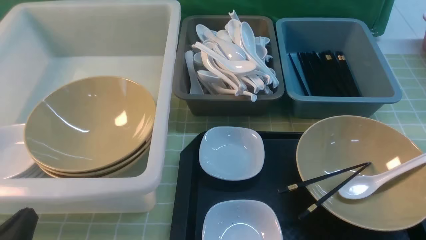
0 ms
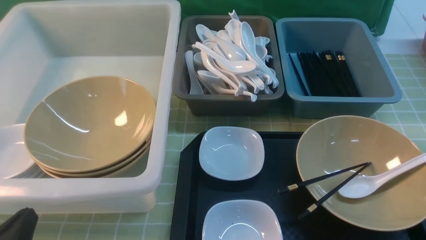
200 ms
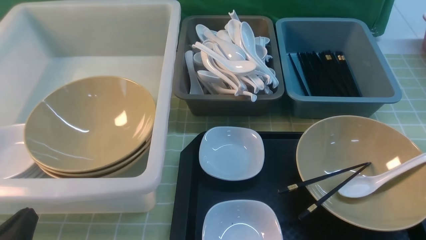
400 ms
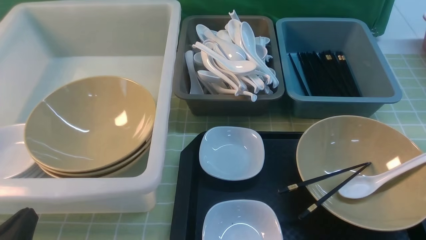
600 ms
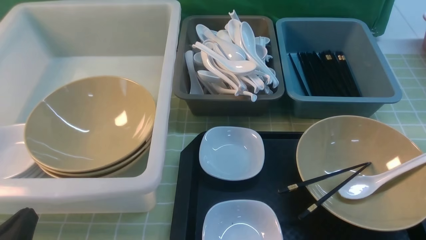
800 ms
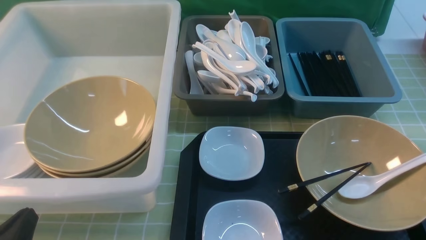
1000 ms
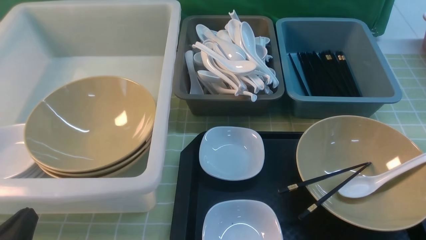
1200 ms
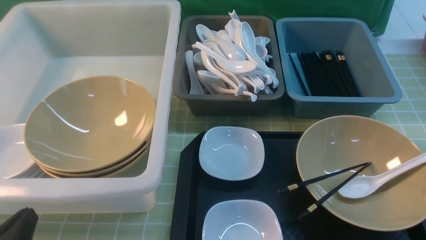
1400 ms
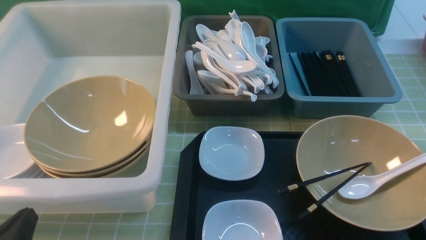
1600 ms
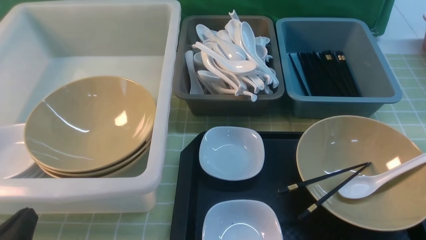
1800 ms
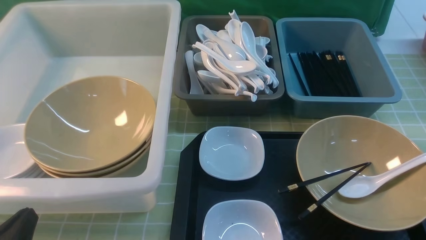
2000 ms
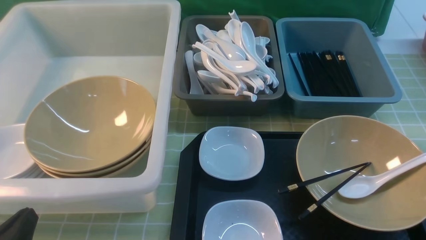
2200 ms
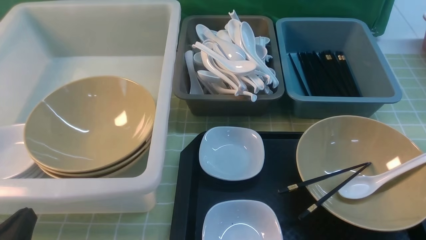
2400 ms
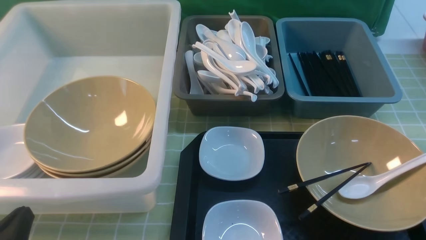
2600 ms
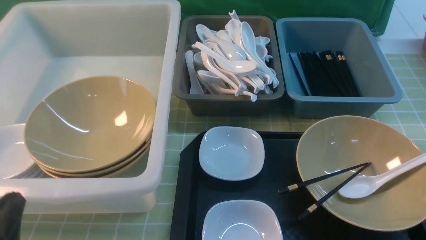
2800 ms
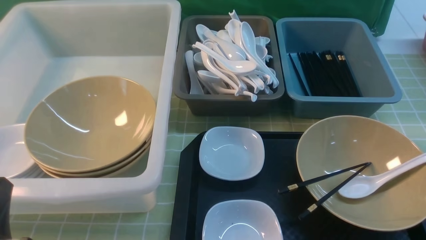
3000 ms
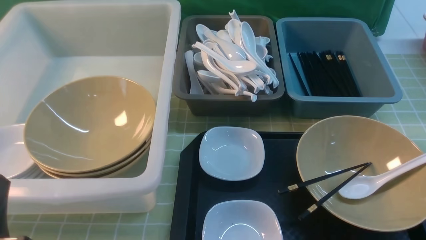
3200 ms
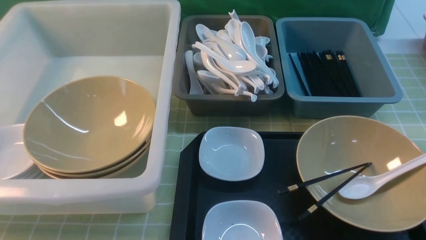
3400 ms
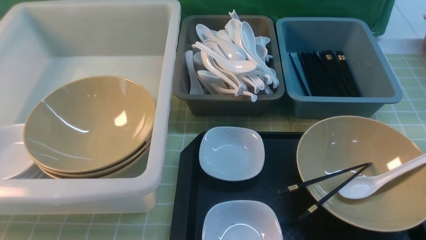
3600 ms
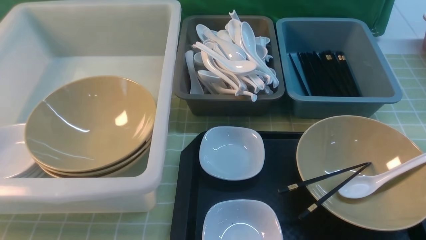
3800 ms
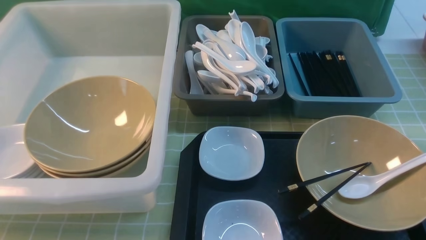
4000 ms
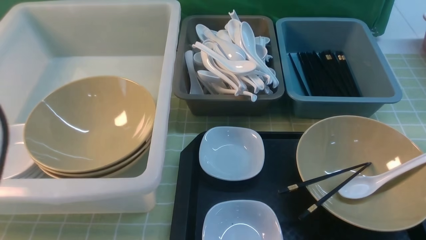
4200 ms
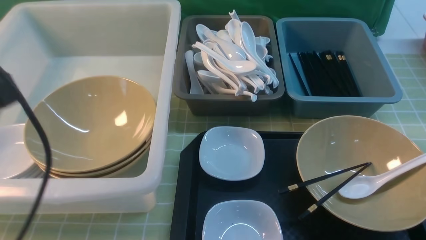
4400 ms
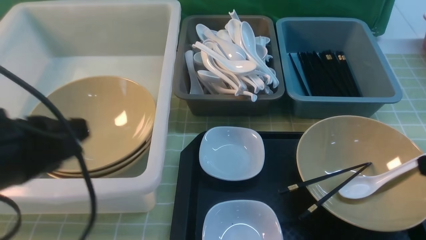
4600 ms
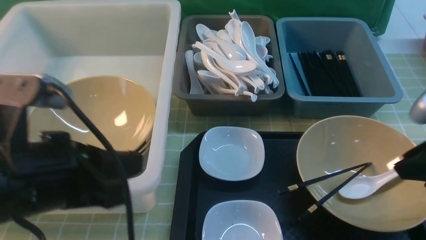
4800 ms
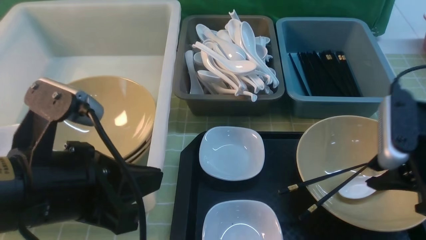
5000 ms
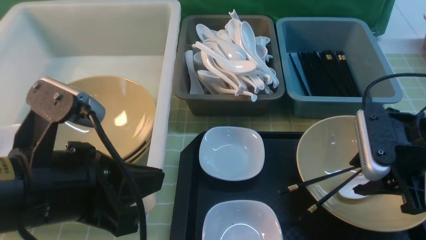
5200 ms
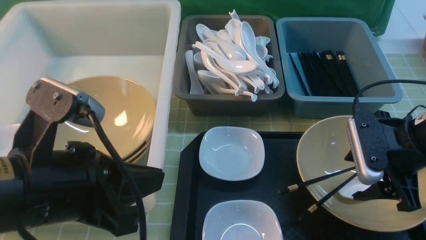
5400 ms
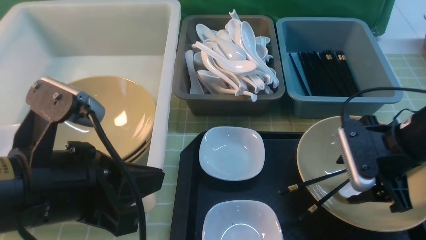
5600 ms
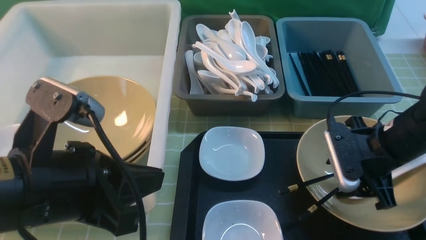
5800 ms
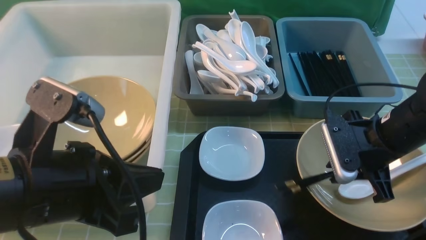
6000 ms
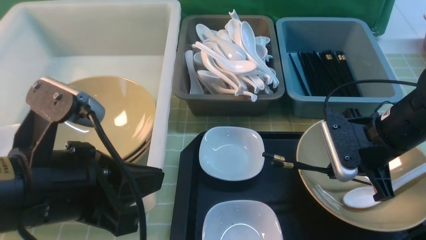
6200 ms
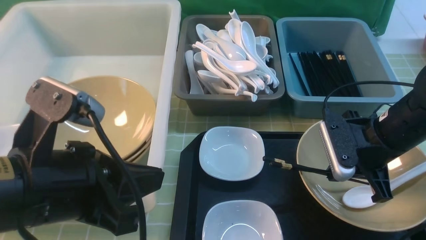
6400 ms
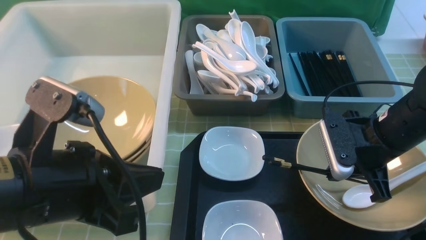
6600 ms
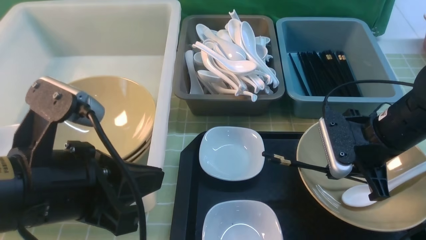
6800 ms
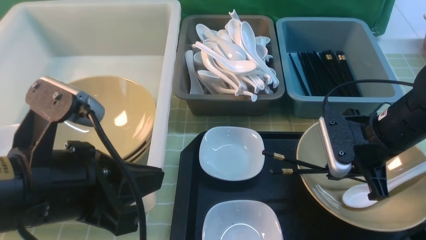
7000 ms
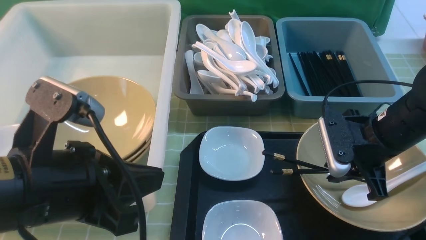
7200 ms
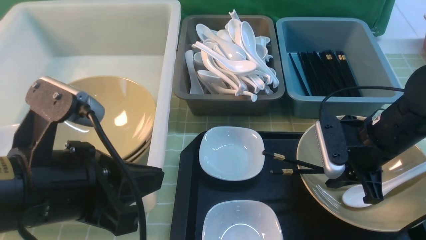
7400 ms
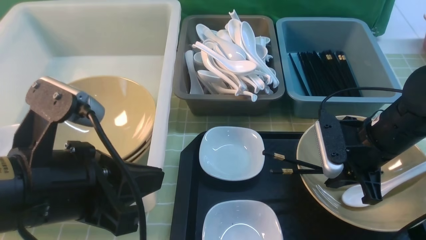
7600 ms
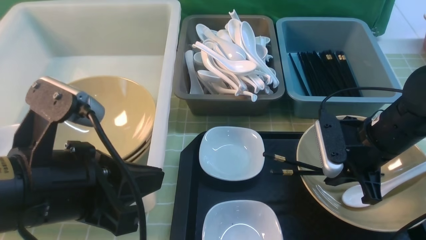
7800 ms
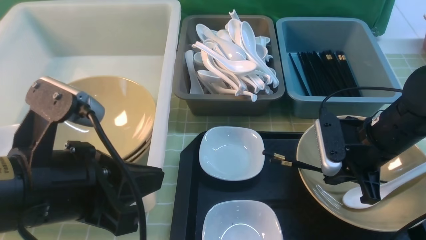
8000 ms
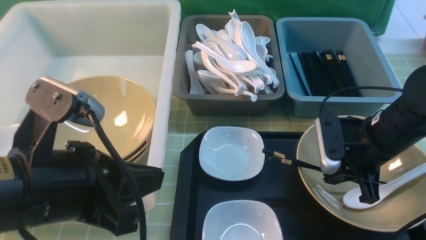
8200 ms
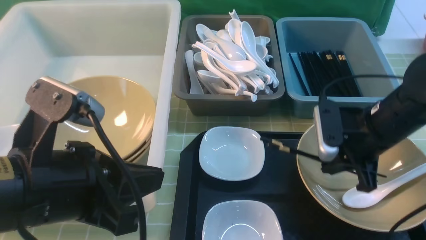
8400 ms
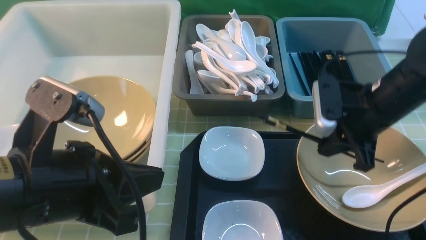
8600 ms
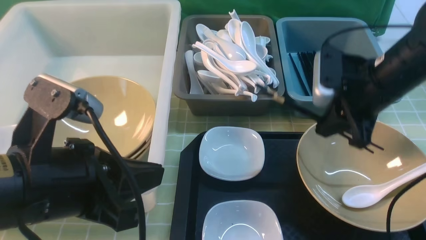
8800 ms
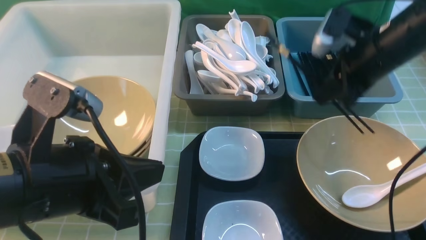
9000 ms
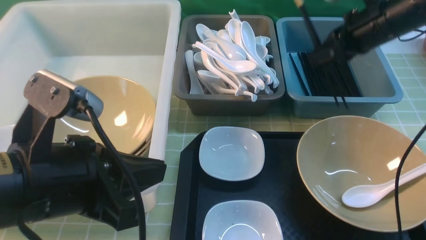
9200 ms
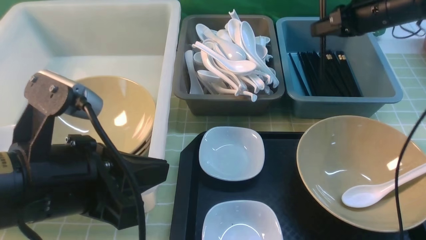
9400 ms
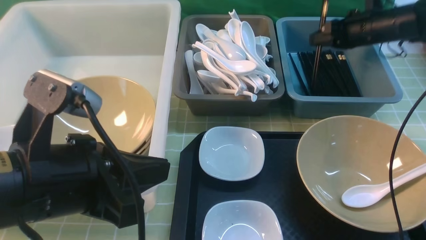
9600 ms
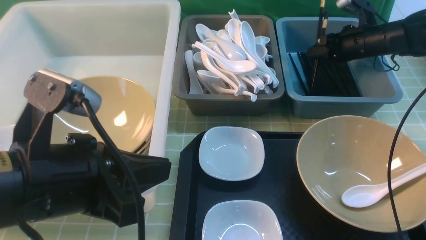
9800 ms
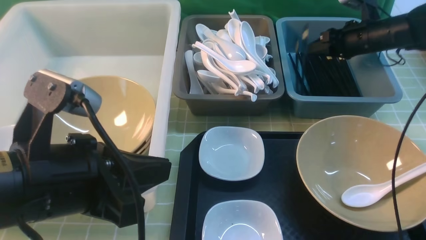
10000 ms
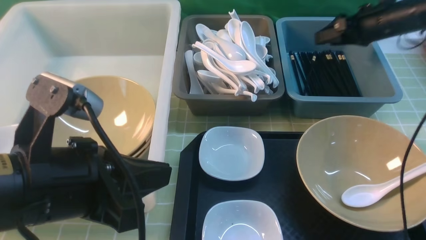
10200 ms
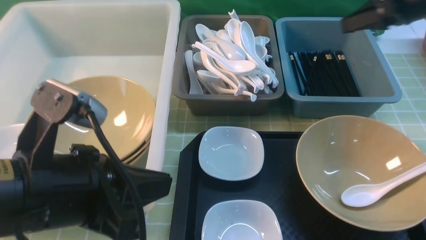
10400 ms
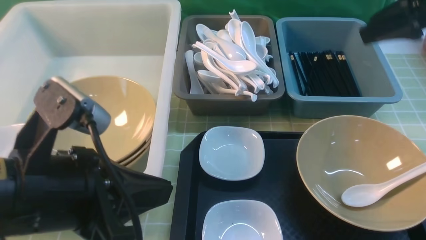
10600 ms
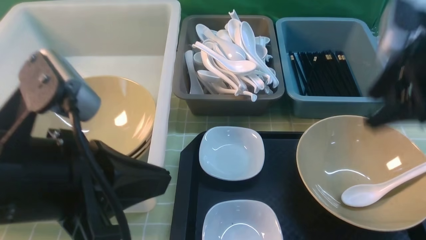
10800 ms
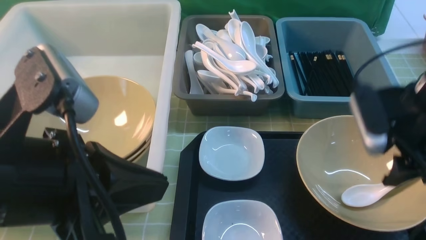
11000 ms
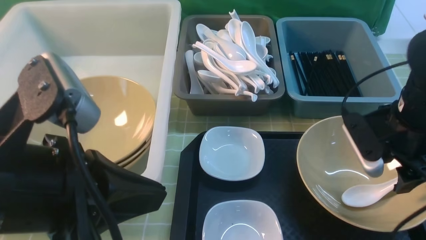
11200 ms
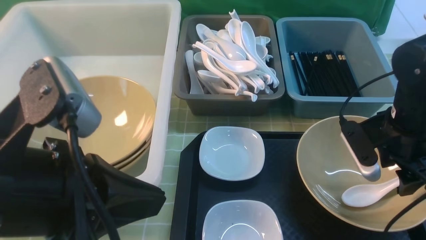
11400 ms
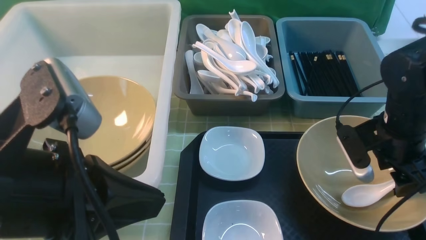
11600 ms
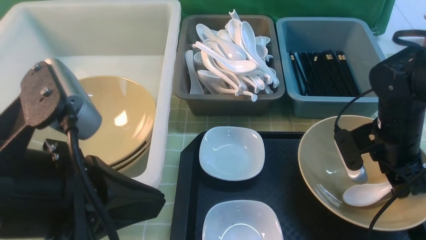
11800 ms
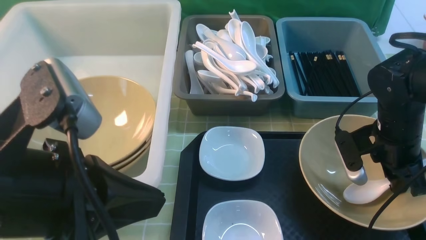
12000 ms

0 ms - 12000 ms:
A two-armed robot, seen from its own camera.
Task of the whole recording: on green table put chopsticks spoon bowls plates into blue grey white boxes.
Step, 0 ms - 8400 ms: use the right arm to grab the chopsticks.
Step, 8600 ms - 10400 ms: use the right arm to put the chopsticks into the small storage box on the right.
0 ms - 1600 ms: Both grippers stay put.
1600 ms - 3000 ms: The grippers stay close to where they were, moving slightly.
3000 ms - 4400 ms: The left gripper is displaced upward and forward by some 15 cm.
4400 ms - 6000 ms: The right gripper travels forward, downward and to the left by some 20 cm, and opens and closes again. Meanwhile the left gripper heads to the right, covering approximately 10 cm.
6000 ms - 7600 ms: The grippers move only a little.
7600 ms - 9000 ms: The right gripper shifts some 15 cm upward and forward.
9000 ms - 10400 ms: The right gripper moves to the right, roughly 10 cm, moves roughly 15 cm forward and comes back, and opens.
10400 ms - 12000 ms: The right gripper heads downward, backward and to the left, covering approximately 20 cm, and closes its fingers.

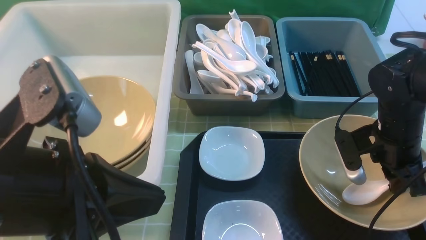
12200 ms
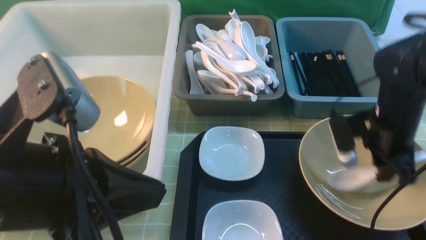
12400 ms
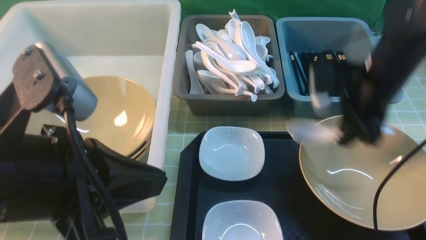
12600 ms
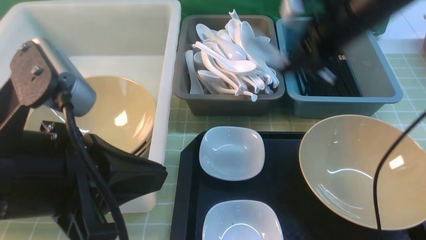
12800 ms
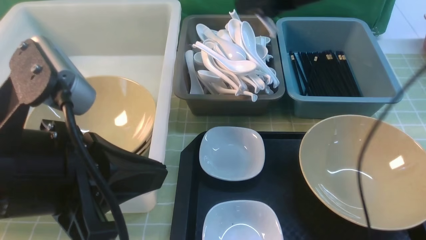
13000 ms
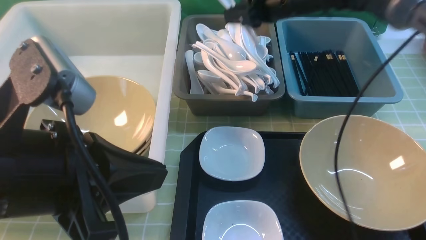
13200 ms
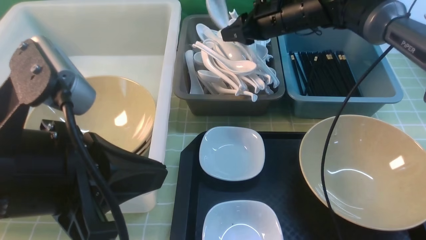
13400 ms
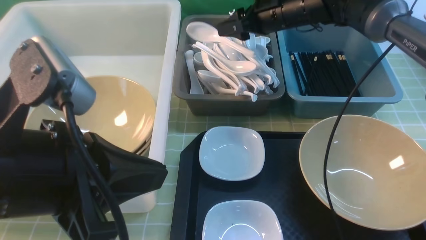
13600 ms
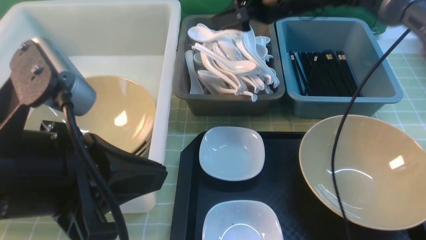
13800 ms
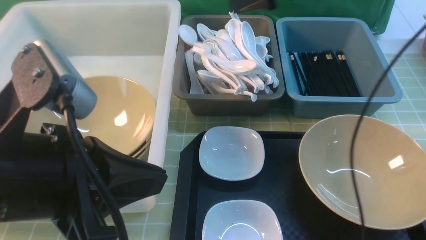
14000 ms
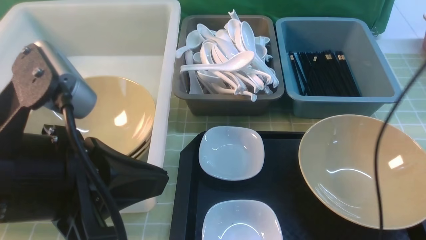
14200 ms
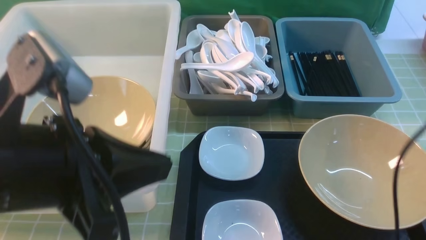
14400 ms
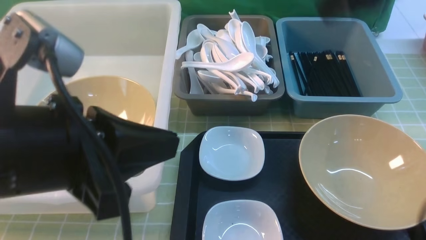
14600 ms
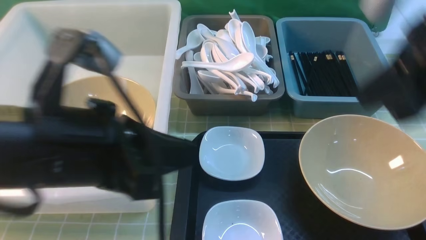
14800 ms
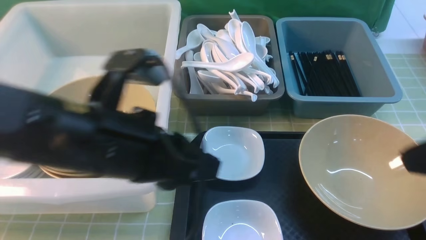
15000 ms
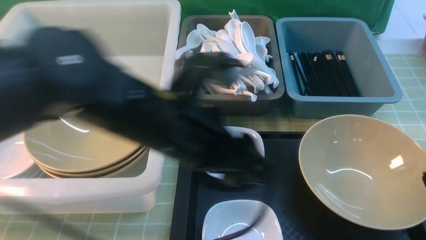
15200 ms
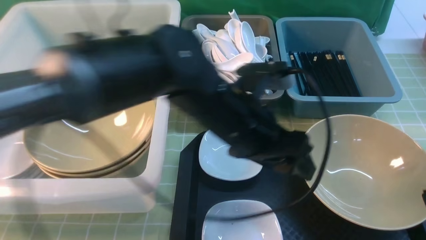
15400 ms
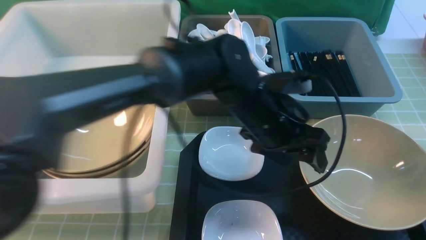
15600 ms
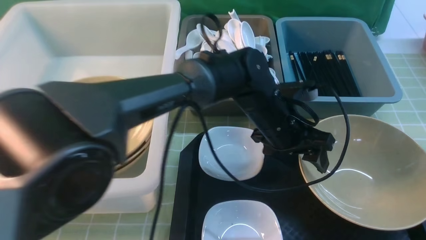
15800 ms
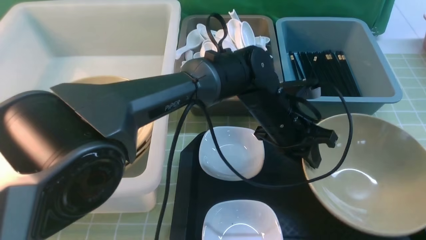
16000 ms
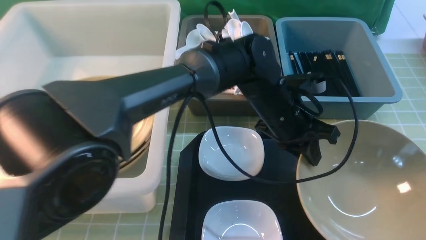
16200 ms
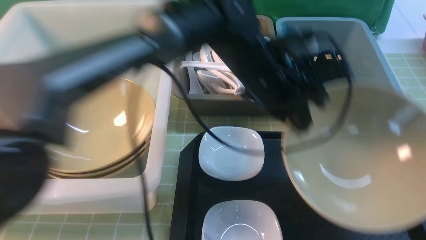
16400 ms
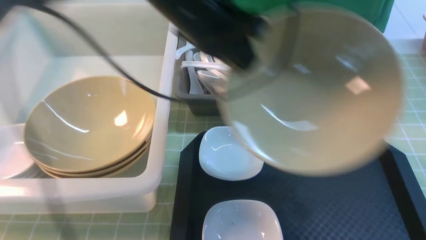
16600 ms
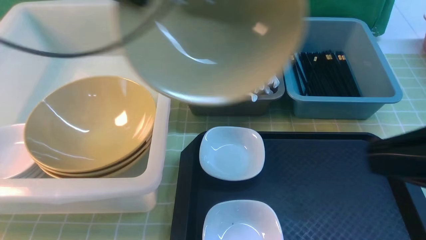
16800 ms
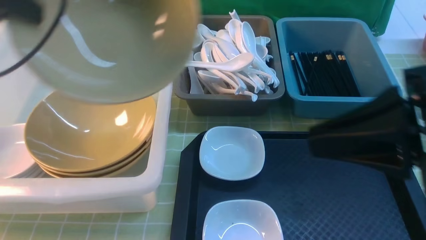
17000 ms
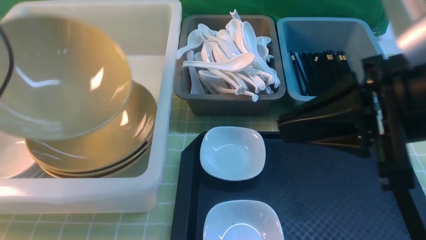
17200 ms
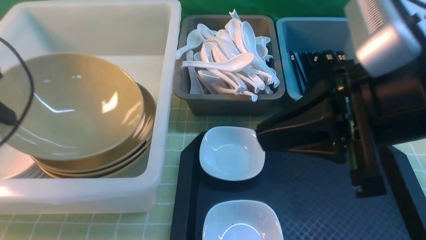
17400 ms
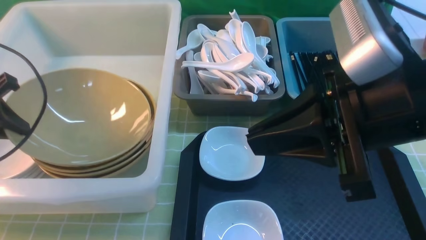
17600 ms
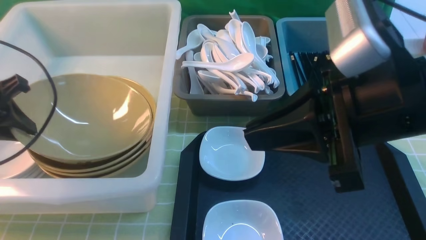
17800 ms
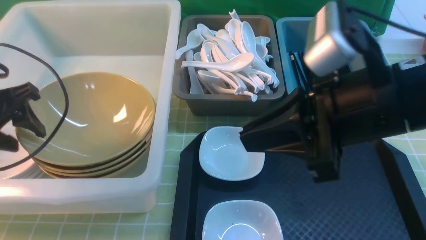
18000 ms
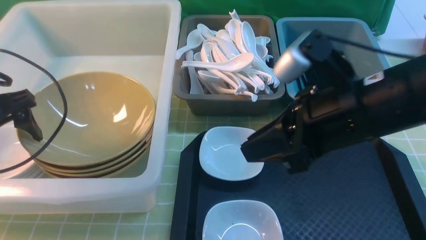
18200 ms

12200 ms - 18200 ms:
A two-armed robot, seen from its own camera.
Task of the whole recording: on green table put chopsticks spoon bowls plates into blue grey white boxes.
Step, 12800 ms - 14200 ms: use the right arm to put the soup spoon into the small storage box in the middle.
Step, 14400 ms - 16000 ms: use the left arm to grab the yellow noodle bowl on the left.
12200 ms - 13800 ms: The right gripper goes some 25 cm forward, upward and to the left, and opens up.
13800 ms - 15200 ms: The left gripper goes roughly 15 cm to the right and forward, and opens its fingers. Meanwhile the right gripper heads backward, covering some 35 cm, and closes its fingers.
15200 ms - 16600 ms: The left gripper moves forward and upward, roughly 15 cm, and closes up.
16600 ms - 18200 ms: The left gripper goes about 25 cm to the left and downward, and opens its fingers. Meanwhile the right gripper shifts some 20 cm forward, to the left and downward, and opens.
